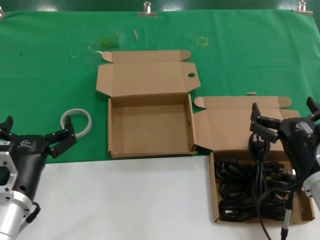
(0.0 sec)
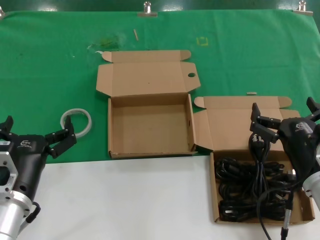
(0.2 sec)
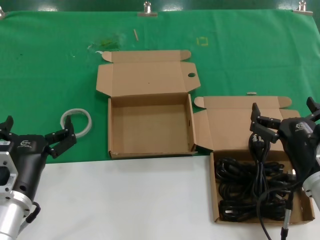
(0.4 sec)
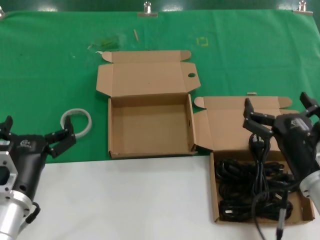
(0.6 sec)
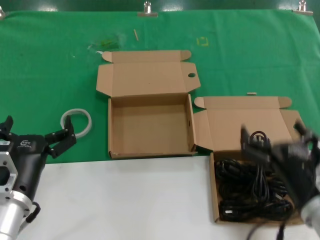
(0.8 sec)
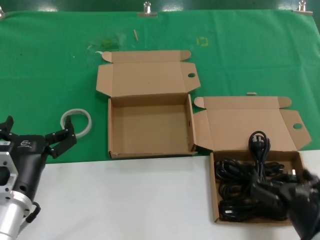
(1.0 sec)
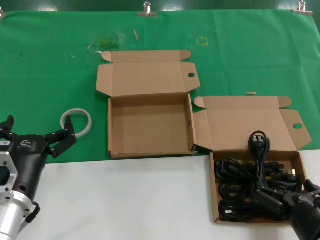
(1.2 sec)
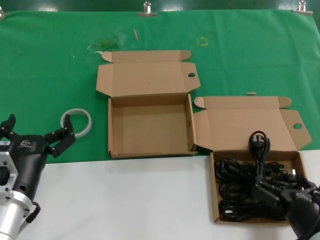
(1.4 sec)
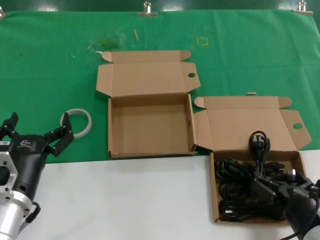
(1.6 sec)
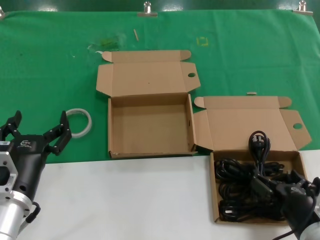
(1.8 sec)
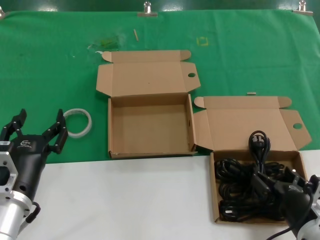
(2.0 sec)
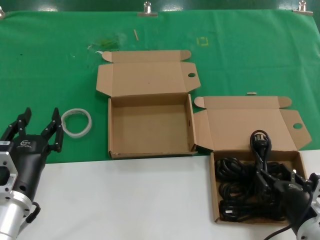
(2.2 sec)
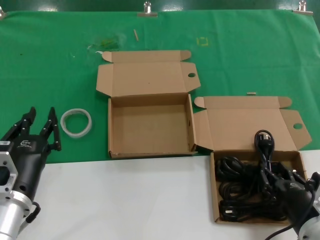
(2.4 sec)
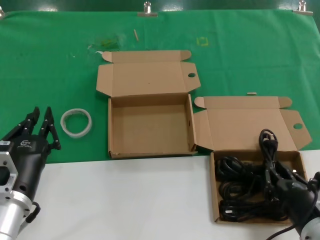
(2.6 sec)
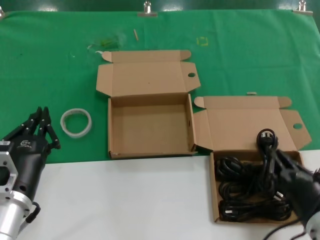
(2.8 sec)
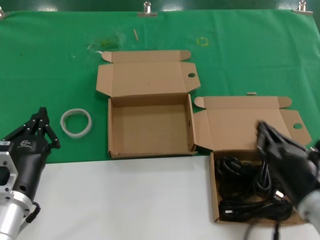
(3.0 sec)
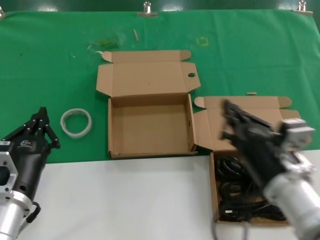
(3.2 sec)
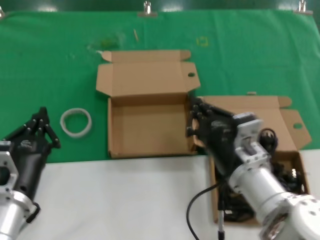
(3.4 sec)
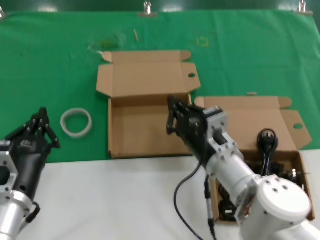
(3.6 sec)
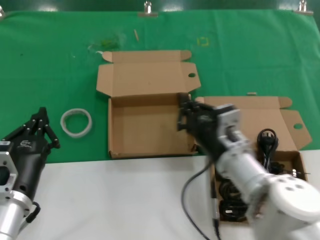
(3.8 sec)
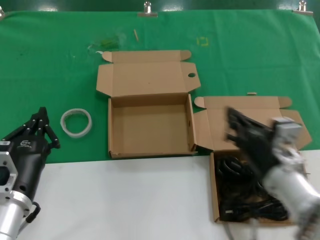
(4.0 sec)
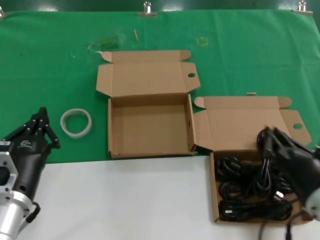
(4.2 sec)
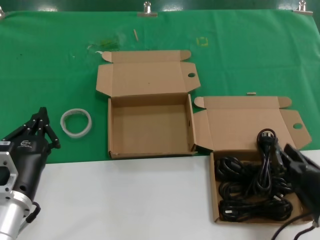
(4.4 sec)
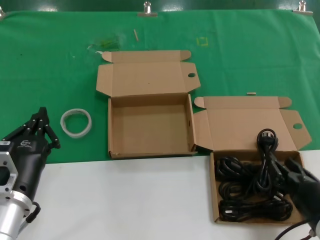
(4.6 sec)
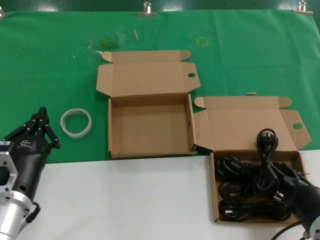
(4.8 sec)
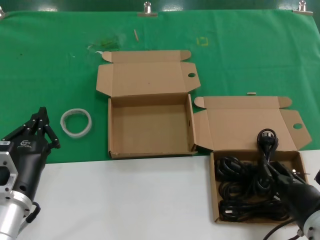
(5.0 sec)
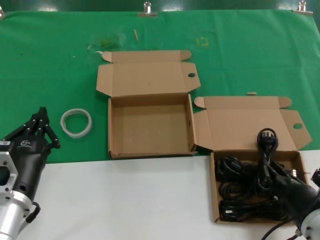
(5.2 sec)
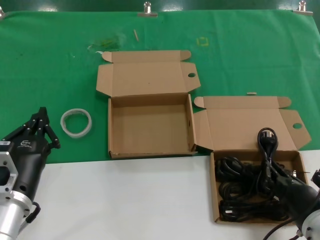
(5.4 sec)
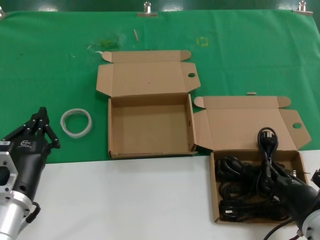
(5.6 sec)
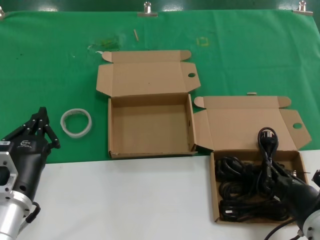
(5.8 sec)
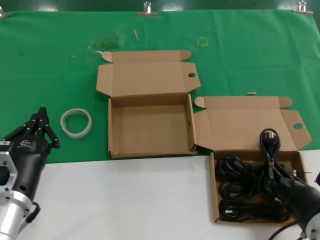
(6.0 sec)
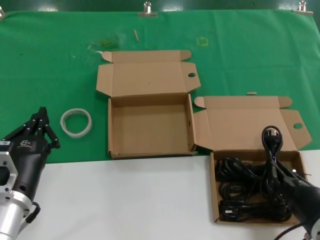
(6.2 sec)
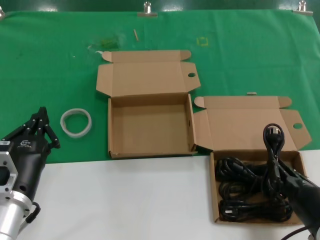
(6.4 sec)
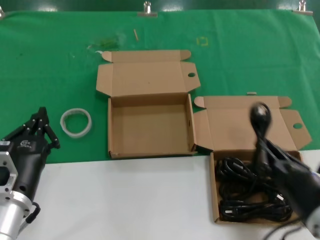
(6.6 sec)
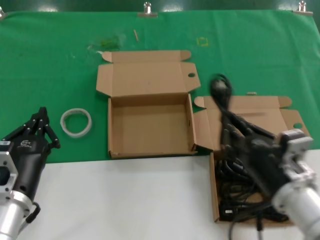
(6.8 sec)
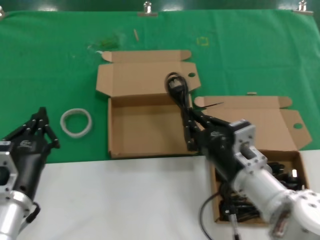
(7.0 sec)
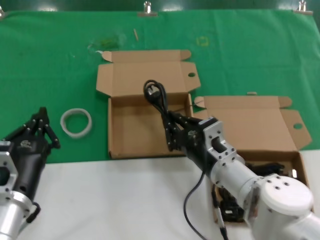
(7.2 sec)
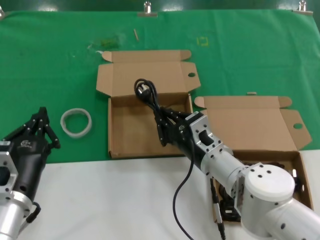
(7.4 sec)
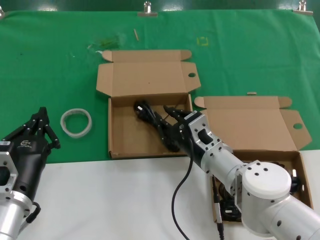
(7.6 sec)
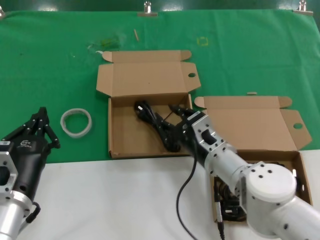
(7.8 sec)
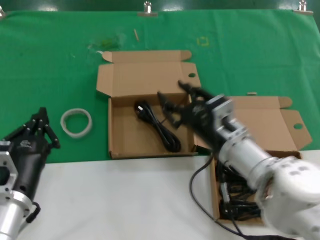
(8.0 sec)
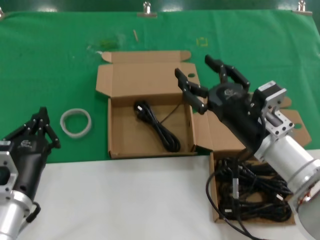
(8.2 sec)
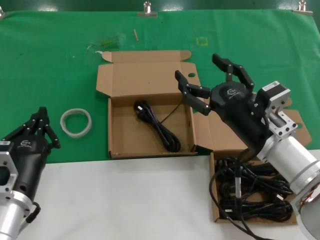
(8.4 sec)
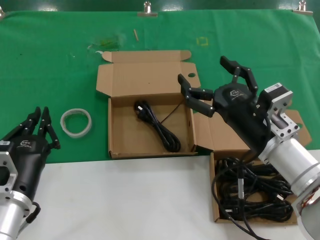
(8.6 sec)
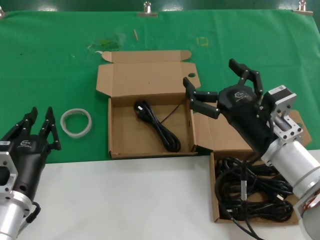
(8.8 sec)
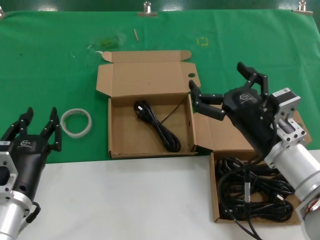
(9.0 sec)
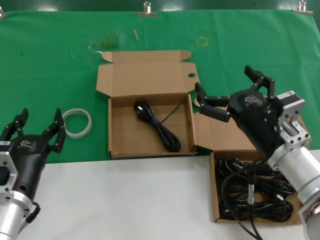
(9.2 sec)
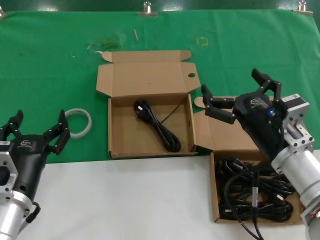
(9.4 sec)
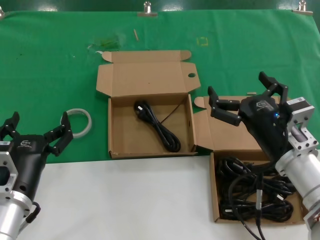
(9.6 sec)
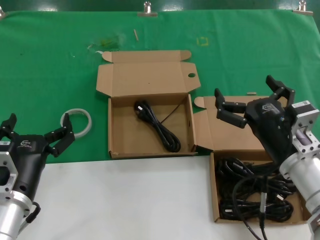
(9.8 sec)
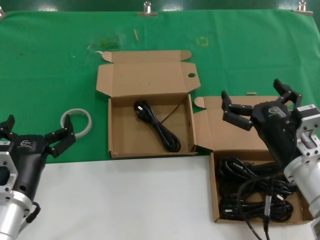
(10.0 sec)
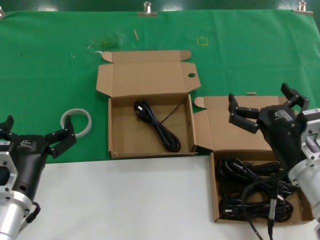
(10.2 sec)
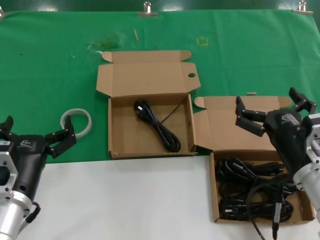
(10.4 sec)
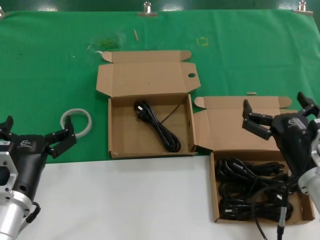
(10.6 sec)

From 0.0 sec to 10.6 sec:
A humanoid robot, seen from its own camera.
Task of the whole recording: Pick up the power cord from the box containing it and place it in another box.
Step, from 0.0 sec to 6.0 sec: Grasp the data cable.
Step, from 6.2 sec to 7.8 sec: Place the data cable in the another box.
From 0.0 sec to 1.6 sec: The right hand heads backward and downward, covering some 10 cm.
From 1.6 sec to 3.0 sec: The right hand goes some 5 cm upward.
From 3.0 sec to 4.6 sec: The right hand moves approximately 10 cm to the left and comes back.
From 4.6 sec to 6.0 sec: The hands make only small movements.
From 6.0 sec to 7.6 sec: The right hand goes approximately 20 cm forward and to the left.
From 7.6 sec to 9.0 sec: The right hand travels to the right, upward and backward by approximately 15 cm.
From 9.0 sec to 10.6 sec: The right hand moves approximately 5 cm.
